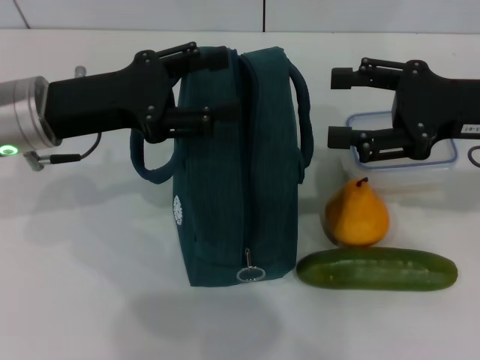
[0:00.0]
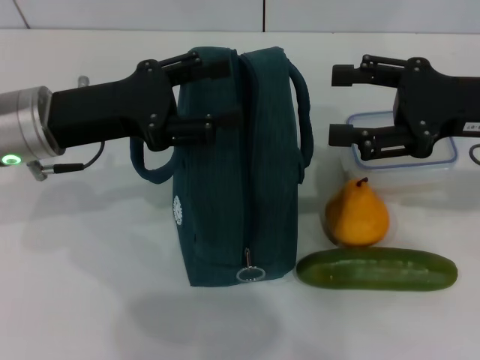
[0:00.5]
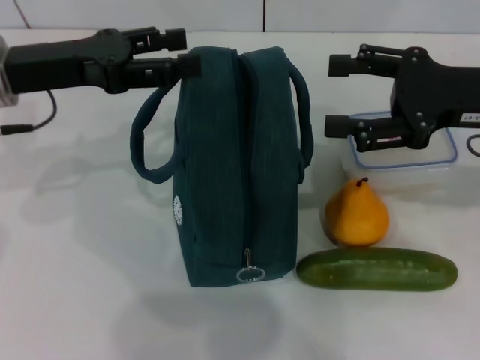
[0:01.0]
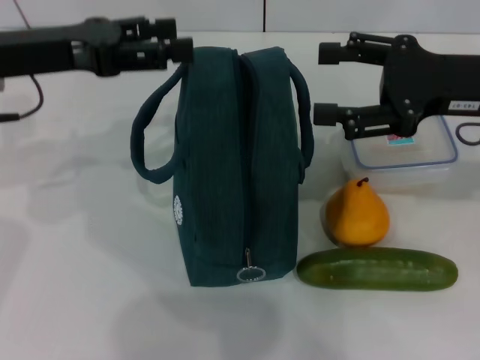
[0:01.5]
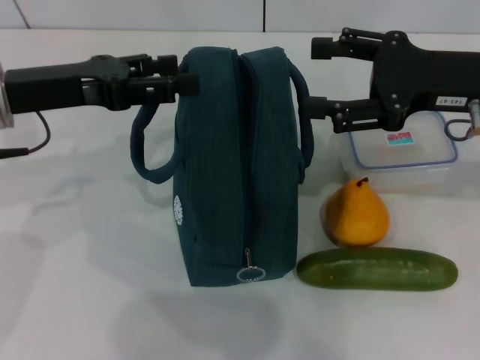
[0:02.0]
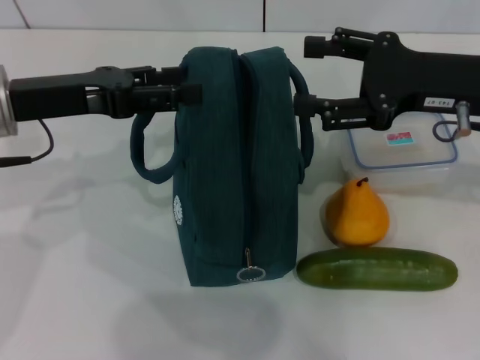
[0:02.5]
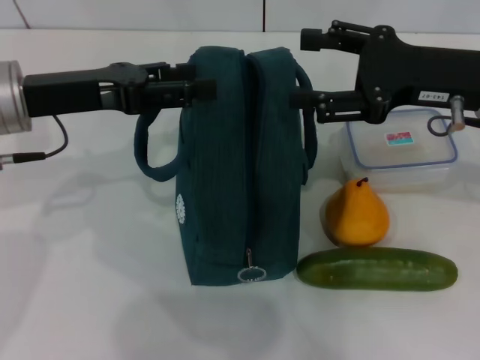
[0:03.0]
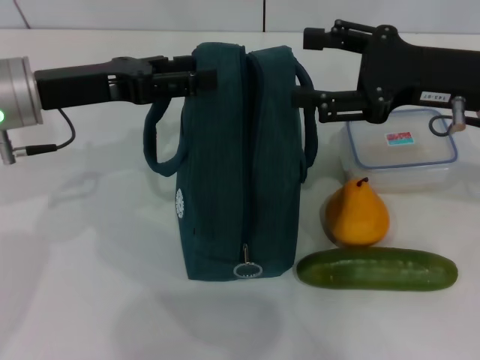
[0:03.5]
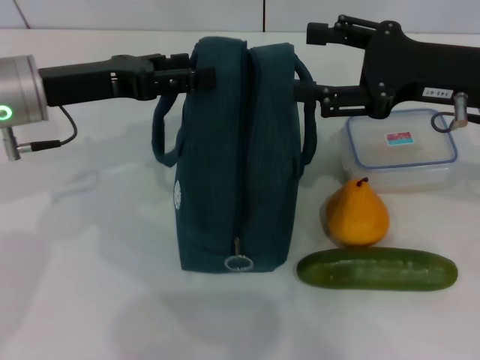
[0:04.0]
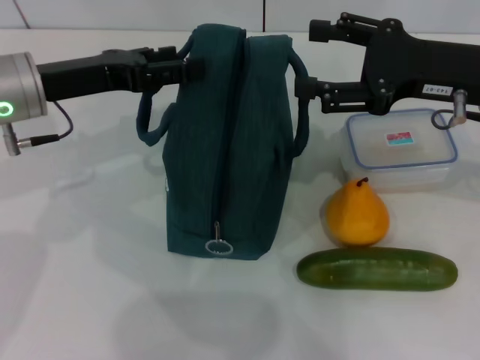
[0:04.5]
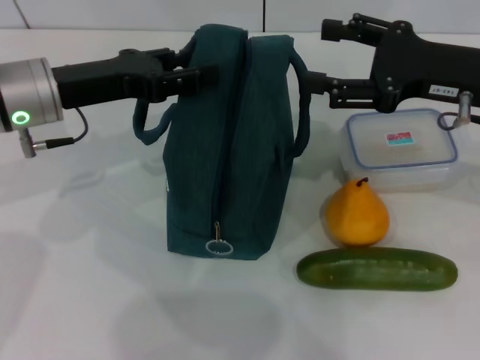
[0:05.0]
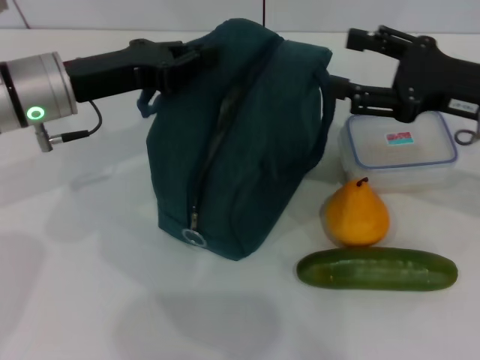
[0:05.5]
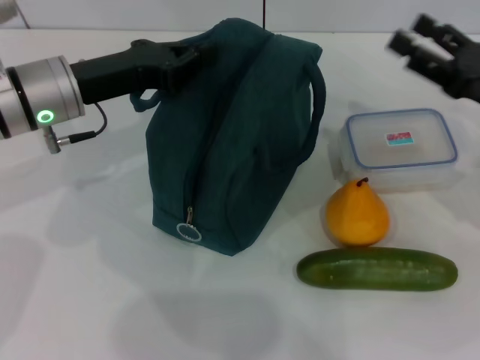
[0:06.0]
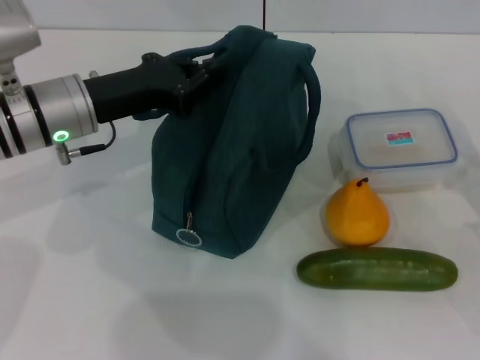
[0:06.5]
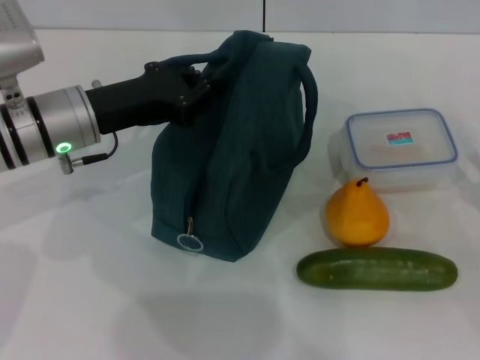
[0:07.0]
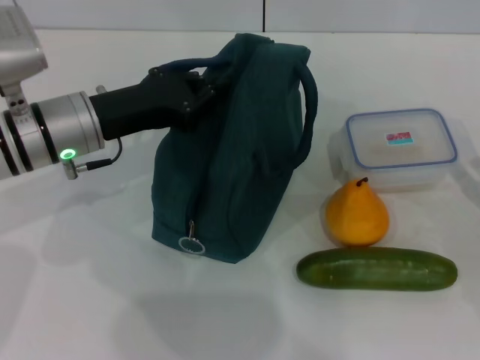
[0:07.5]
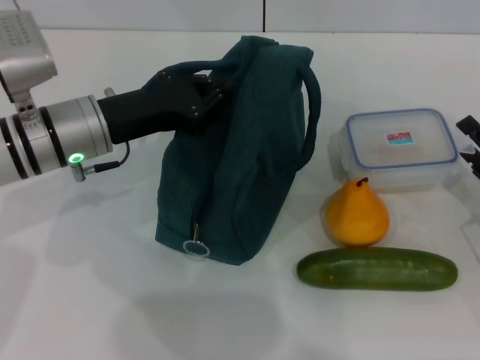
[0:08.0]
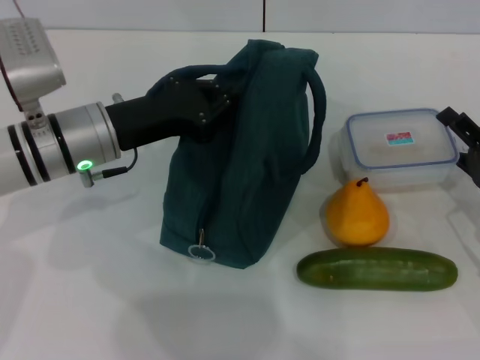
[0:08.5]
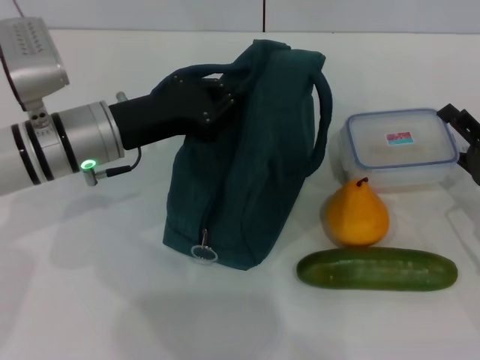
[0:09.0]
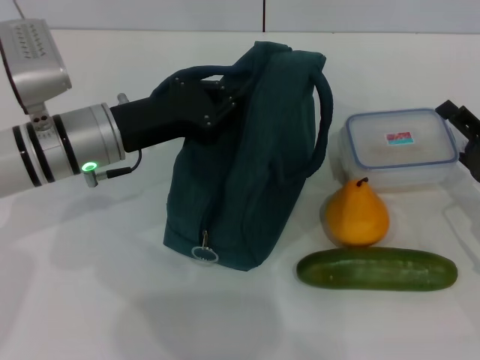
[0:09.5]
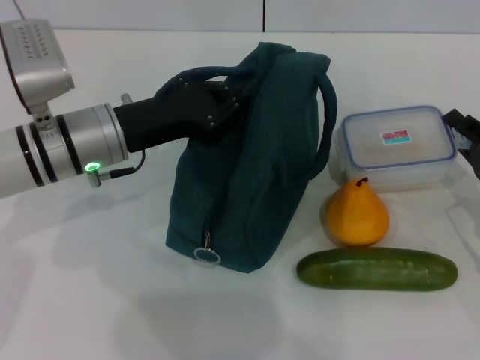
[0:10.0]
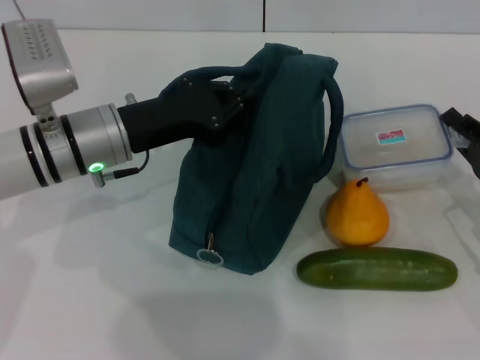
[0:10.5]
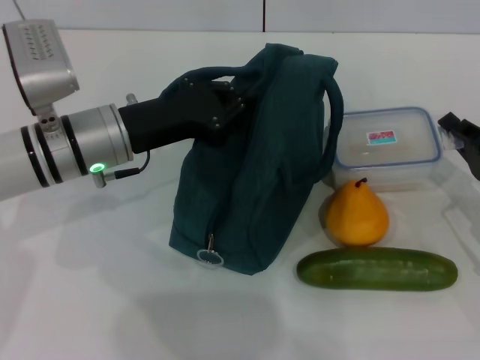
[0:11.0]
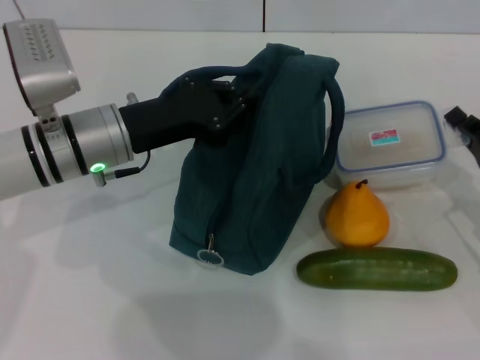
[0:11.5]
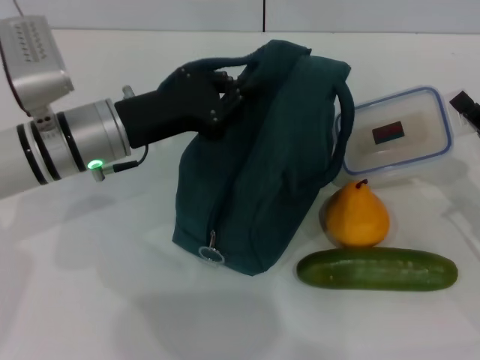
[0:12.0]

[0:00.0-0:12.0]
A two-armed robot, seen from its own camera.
Step, 0:00.0 to 0:06.0: Hold the lunch bag with your left hand.
Step, 0:07.0 to 0:11.5: Pick up the lunch box with your right hand.
0:02.0 to 0:04.0: The grippers move only a little.
0:04.0 to 0:06.0: The right gripper shifts some 10 cm downward and to the right, while the left gripper closes its fingers.
0:06.0 to 0:08.0: The right gripper shifts some 10 cm downward and backward.
0:08.0 to 0:10.0: The right gripper closes up.
0:10.0 to 0:12.0: The right gripper closes.

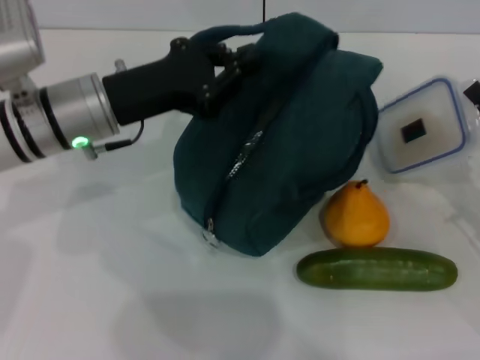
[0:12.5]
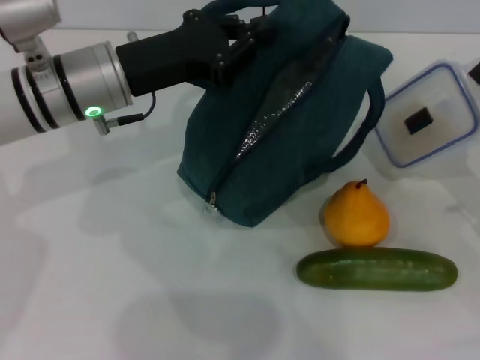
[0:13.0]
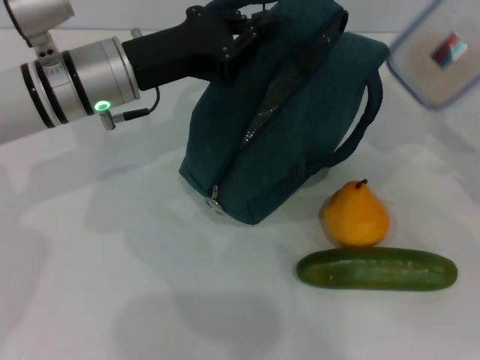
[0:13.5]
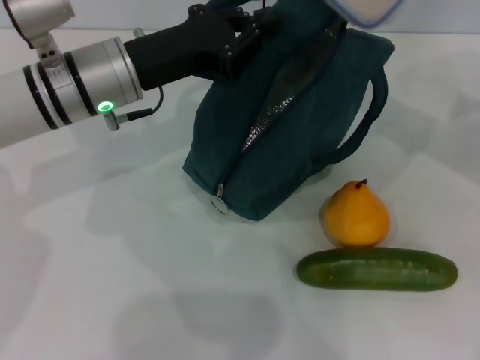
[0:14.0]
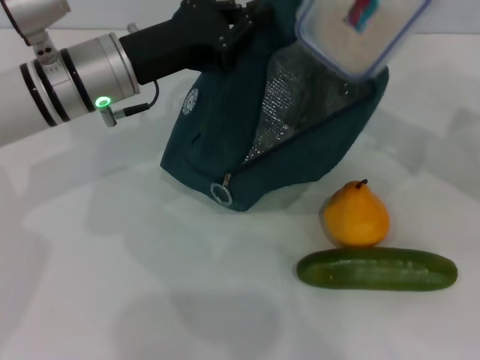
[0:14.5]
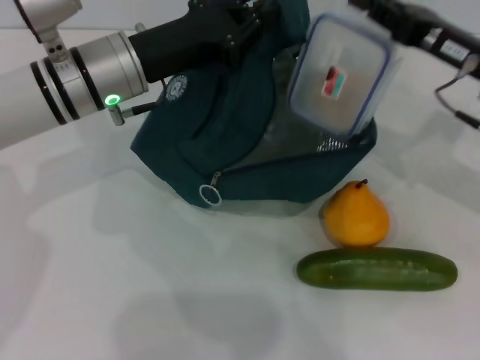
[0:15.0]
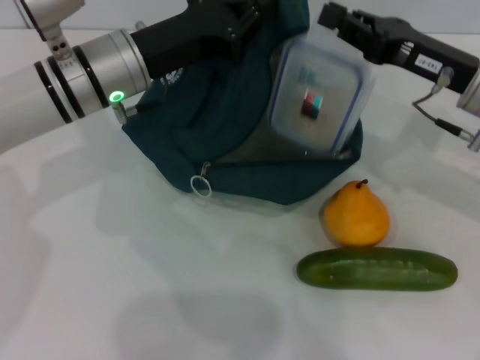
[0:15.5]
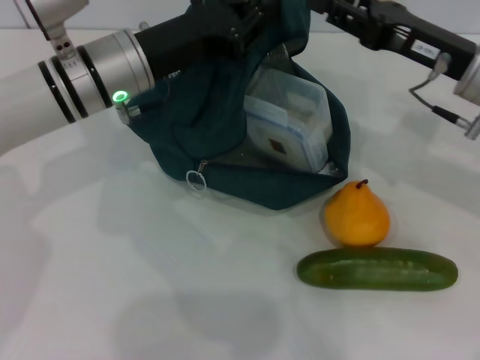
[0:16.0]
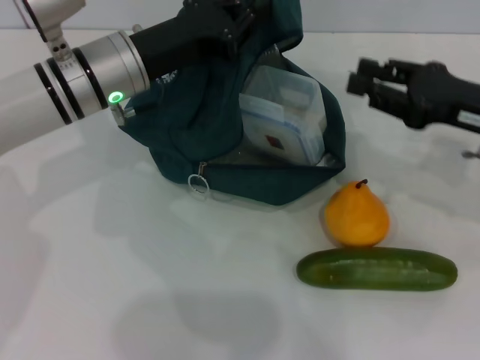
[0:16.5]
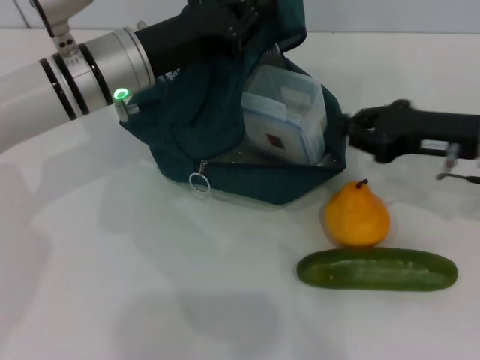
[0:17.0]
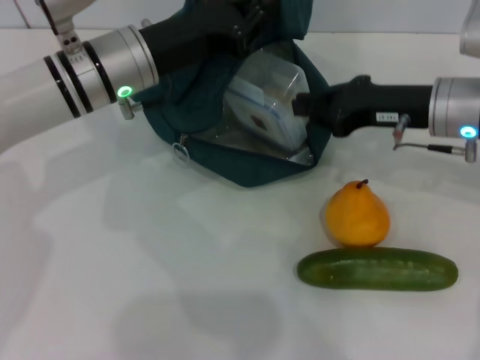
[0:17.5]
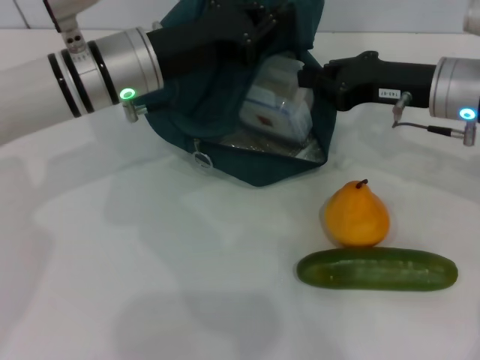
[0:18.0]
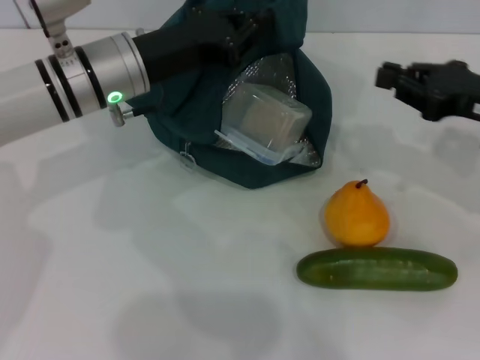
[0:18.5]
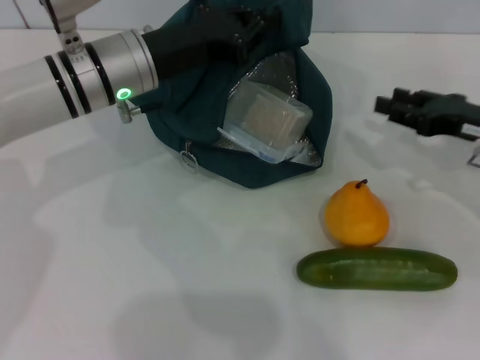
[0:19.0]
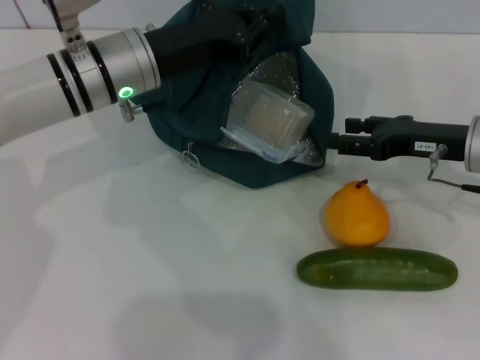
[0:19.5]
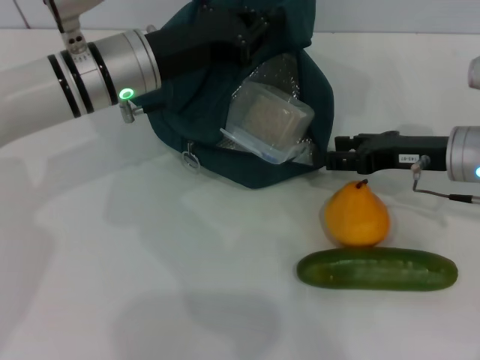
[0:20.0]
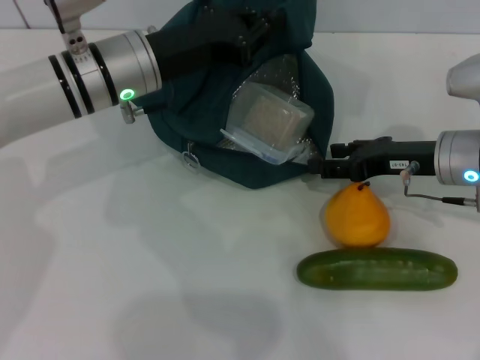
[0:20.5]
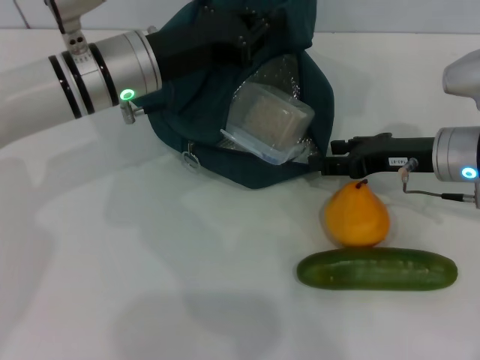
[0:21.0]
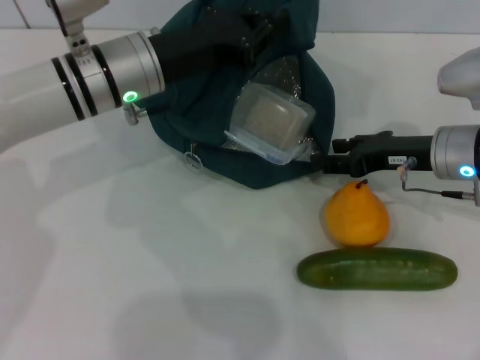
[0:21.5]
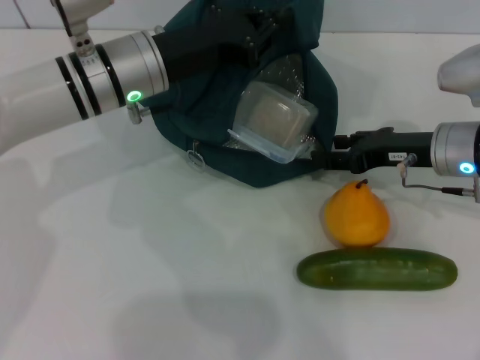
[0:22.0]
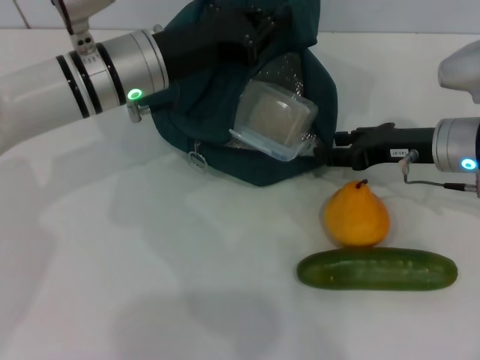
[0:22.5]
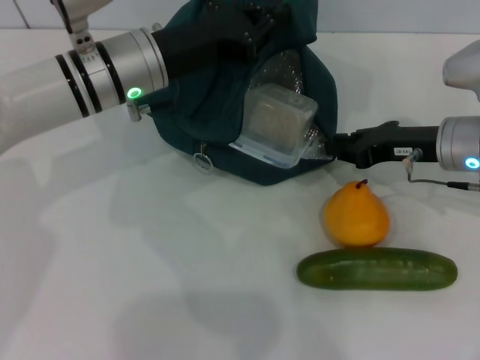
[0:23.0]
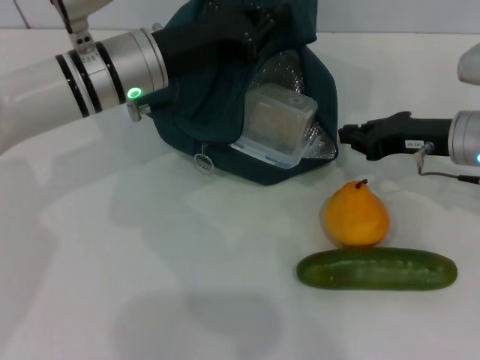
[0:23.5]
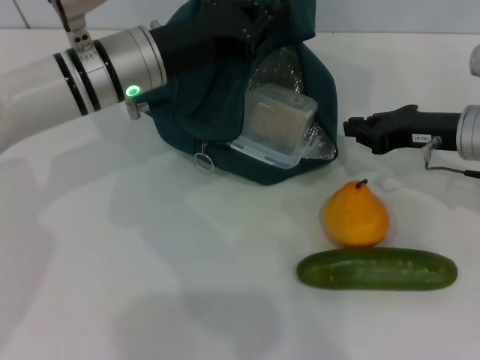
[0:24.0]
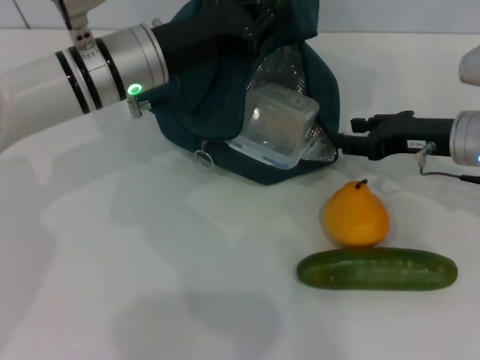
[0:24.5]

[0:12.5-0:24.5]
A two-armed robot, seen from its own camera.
Step, 0:12.5 to 0:15.5: Place the lunch box into the lunch bag with your right hand.
0:12.5 to 0:14.5: The right gripper moves upward, forward and to the left, about 15 cm.
0:14.5 to 0:16.5: The right gripper moves some 5 cm, and opens.
0:16.5 to 0:18.5: The right gripper moves roughly 5 cm to the left and comes back, and closes its fingers.
0:18.5 to 0:20.5: The right gripper heads to the left and downward, covering roughly 10 cm, and opens its fingers.
0:20.5 to 0:24.5: The grippers move only a little.

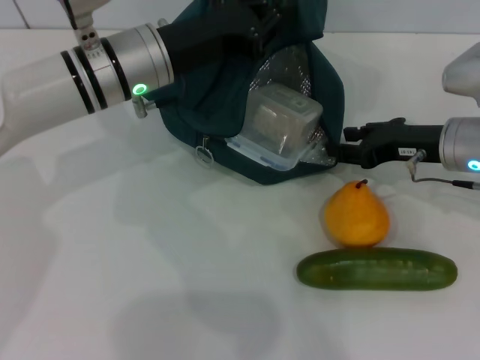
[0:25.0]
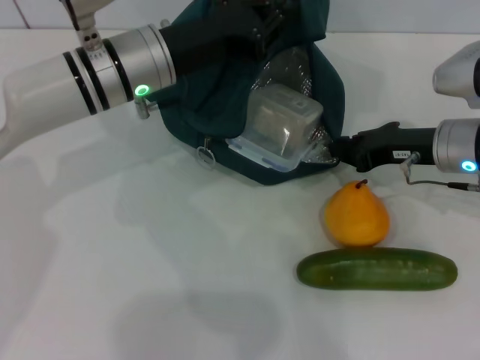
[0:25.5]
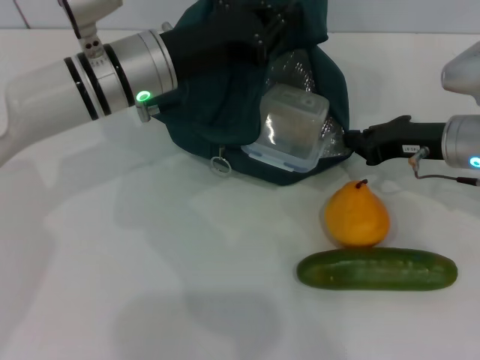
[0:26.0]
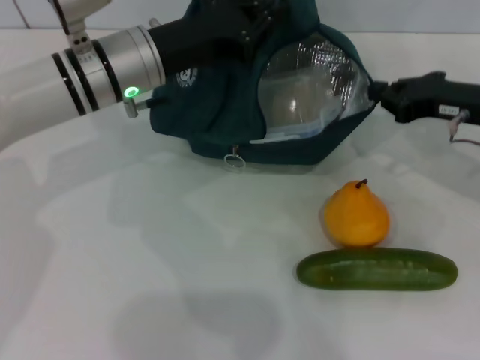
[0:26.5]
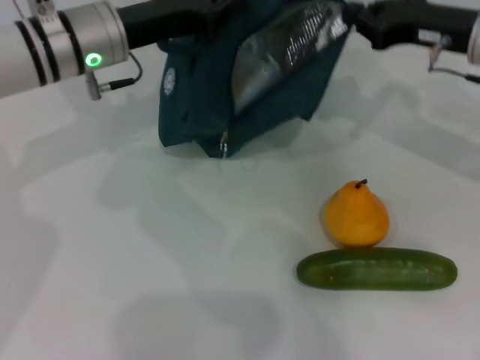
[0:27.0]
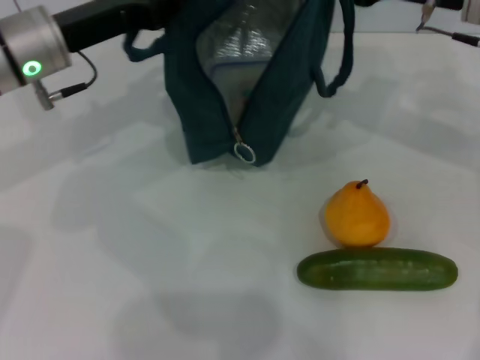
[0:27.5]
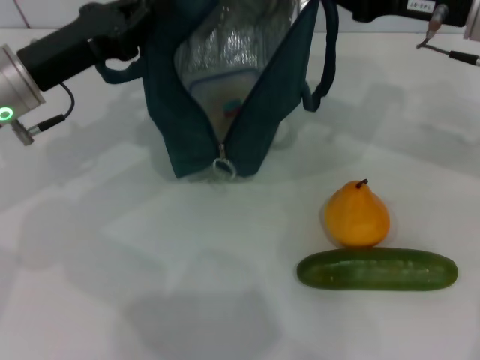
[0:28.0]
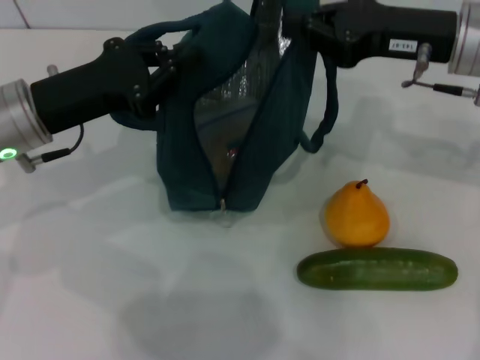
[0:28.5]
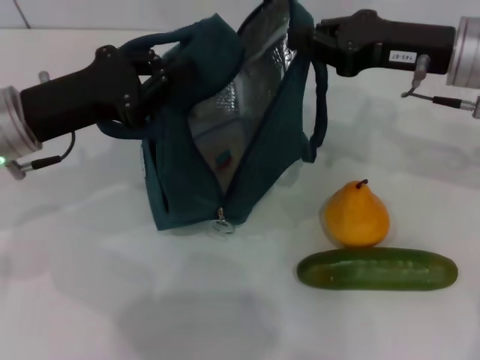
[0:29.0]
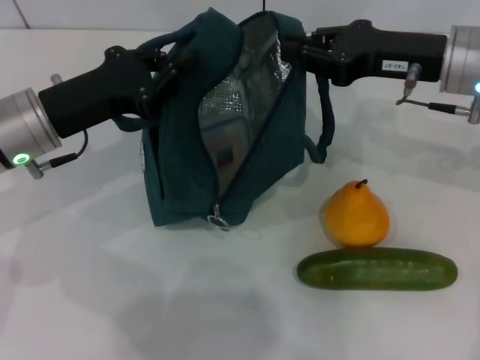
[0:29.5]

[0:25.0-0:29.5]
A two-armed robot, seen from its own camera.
0:25.0 to 0:27.0: The right gripper goes some 10 cm upward, and closes its fingers.
0:27.0 to 0:29.5: The left gripper shifts some 10 cm backward and to the left.
